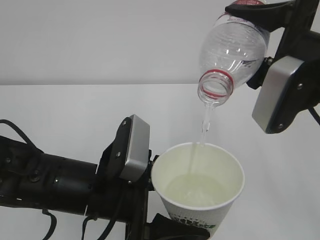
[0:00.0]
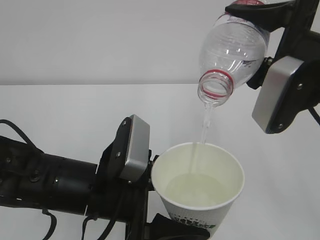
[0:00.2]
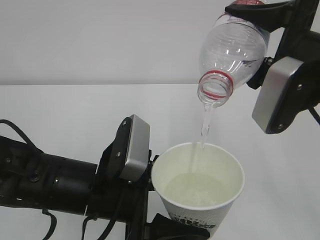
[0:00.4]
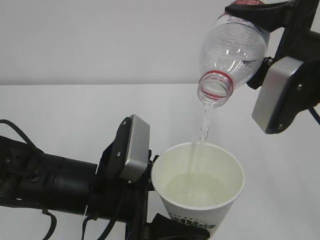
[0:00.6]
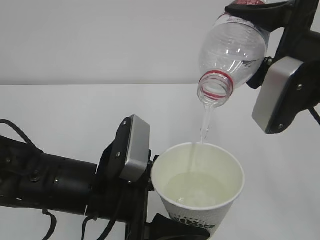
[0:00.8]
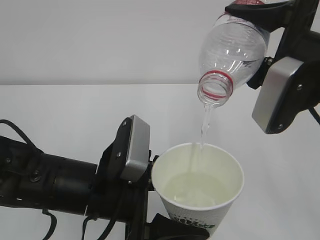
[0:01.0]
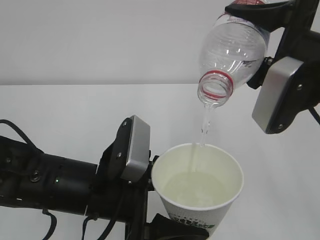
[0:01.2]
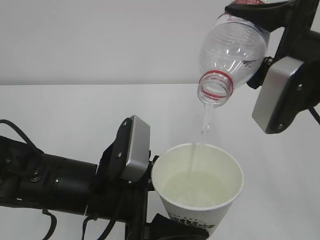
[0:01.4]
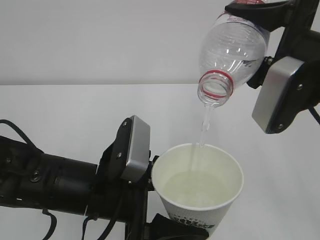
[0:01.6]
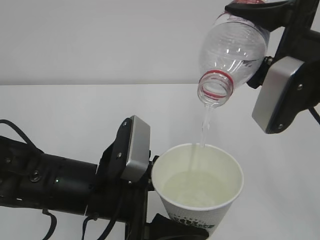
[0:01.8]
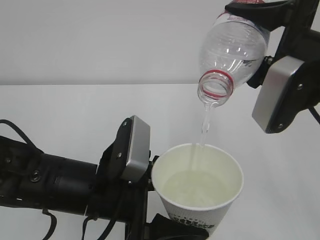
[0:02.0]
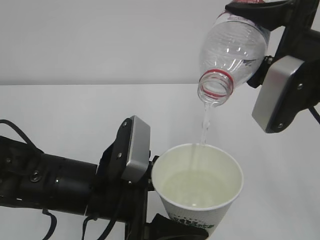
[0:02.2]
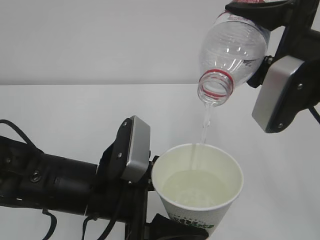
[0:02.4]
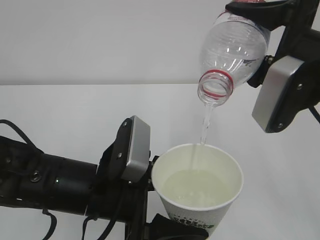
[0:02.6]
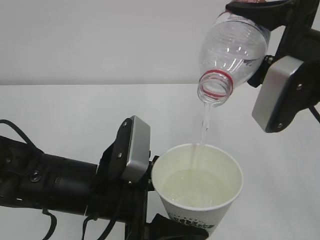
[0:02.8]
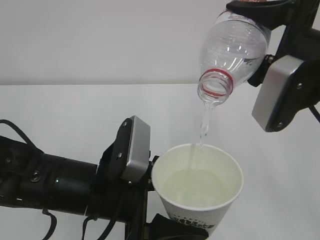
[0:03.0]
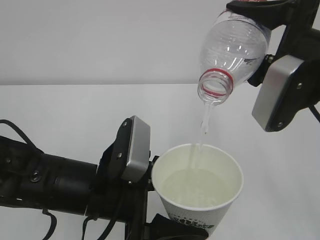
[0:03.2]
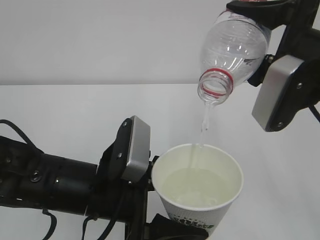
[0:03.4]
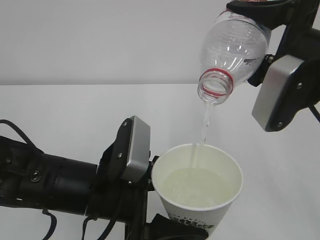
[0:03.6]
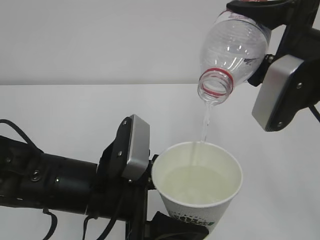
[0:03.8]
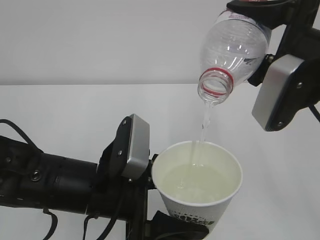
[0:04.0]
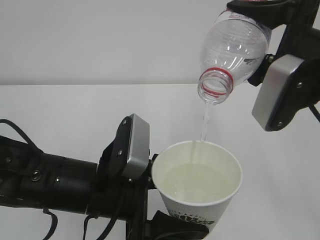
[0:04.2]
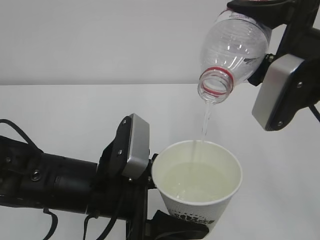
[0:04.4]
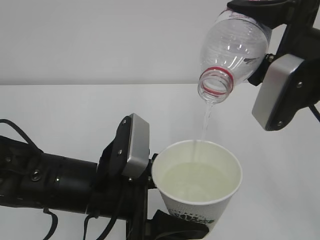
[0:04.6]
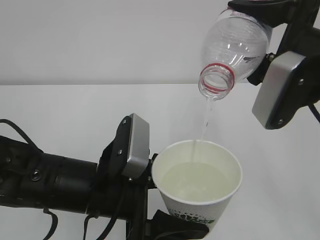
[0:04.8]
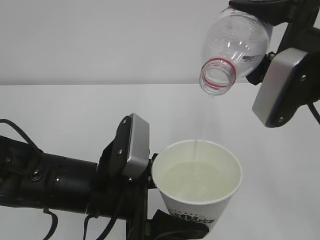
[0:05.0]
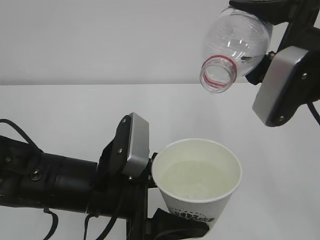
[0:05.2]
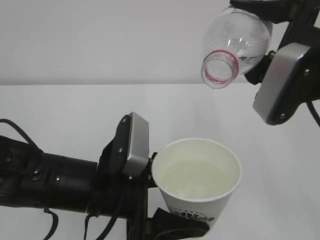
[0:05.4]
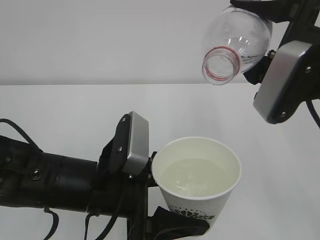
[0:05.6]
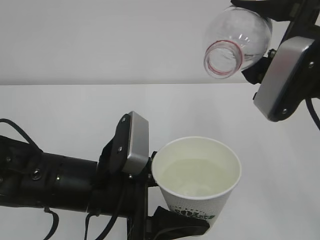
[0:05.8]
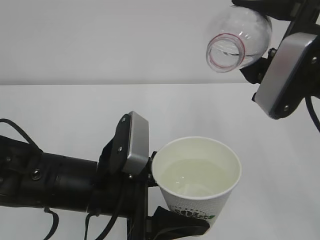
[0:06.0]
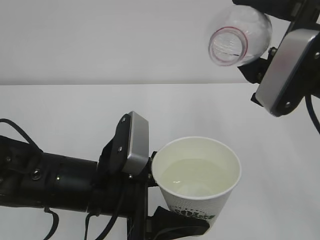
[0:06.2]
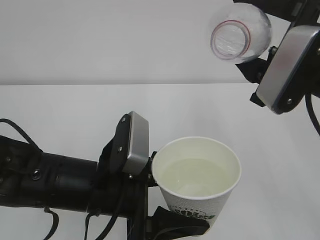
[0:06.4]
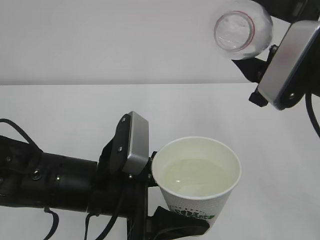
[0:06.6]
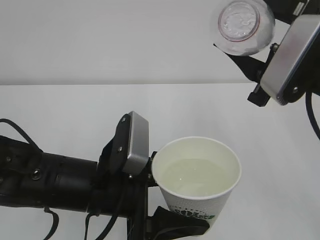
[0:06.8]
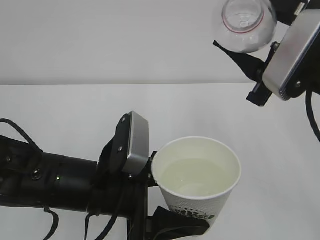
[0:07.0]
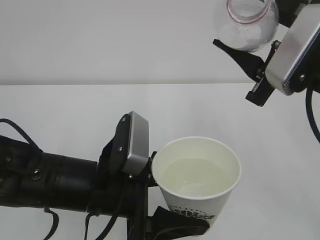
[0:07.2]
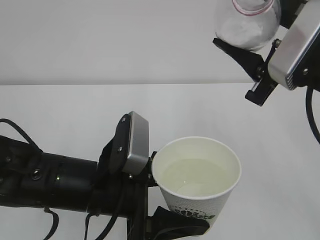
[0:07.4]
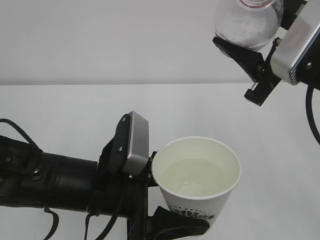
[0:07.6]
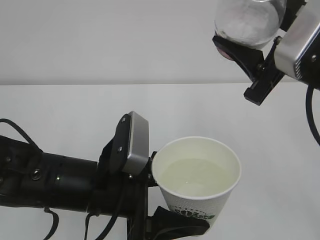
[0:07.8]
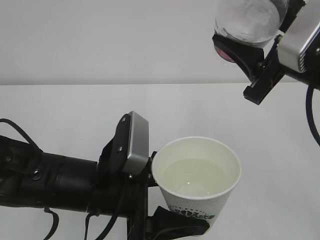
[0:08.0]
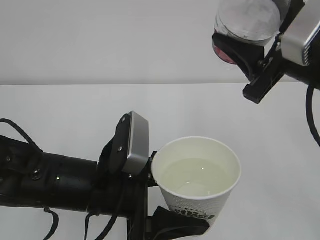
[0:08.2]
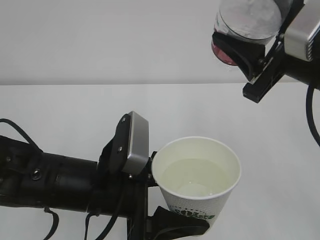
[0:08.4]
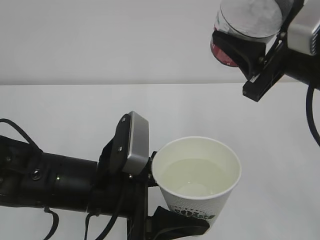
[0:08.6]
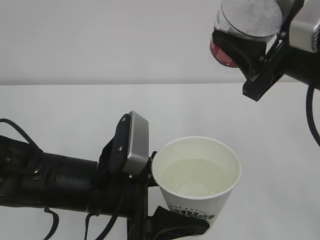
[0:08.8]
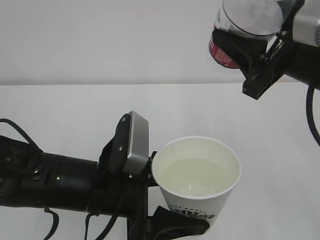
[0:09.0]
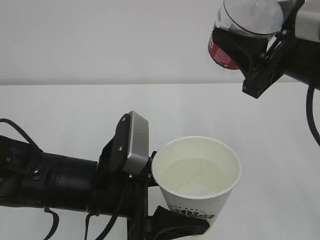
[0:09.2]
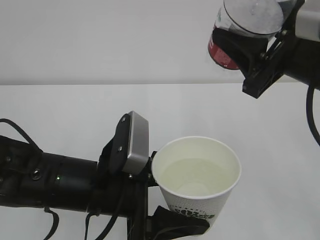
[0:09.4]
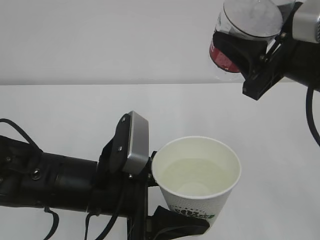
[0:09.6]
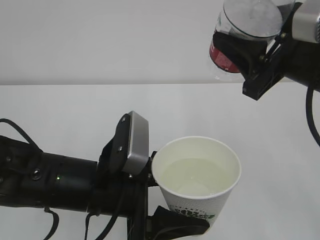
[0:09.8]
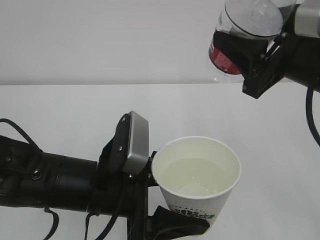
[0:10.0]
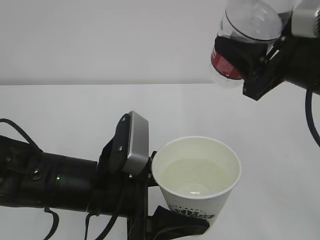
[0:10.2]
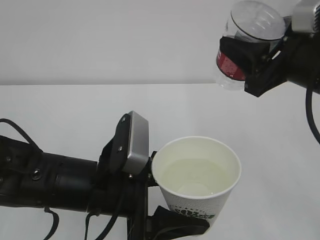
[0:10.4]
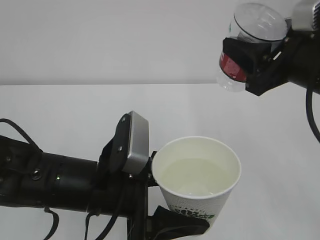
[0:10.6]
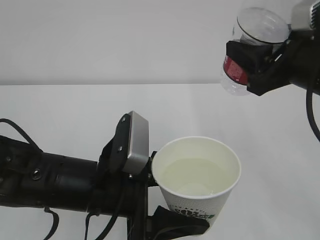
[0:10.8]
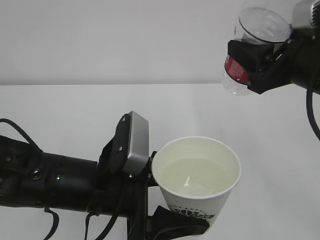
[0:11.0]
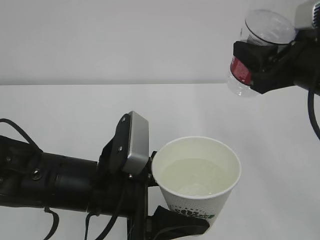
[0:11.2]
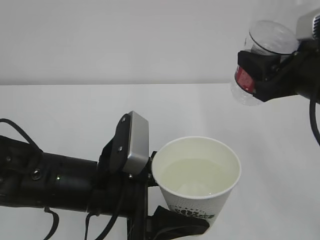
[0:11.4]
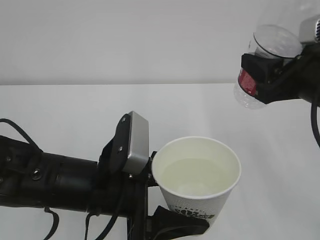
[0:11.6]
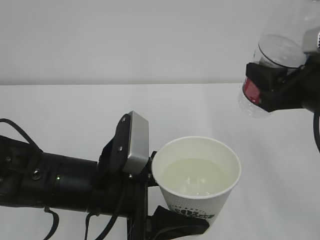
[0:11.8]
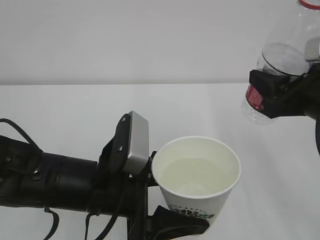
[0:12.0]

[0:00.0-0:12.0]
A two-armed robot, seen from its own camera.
0:00.0 to 0:04.4: Both grippers stay put.
0:04.4 to 0:06.0: The grippers stay close to where they were, moving slightly.
0:09.0 to 0:10.4: There are only small adjustments of the grippers.
0:10.4 to 0:12.0: The right gripper moves about 5 cm.

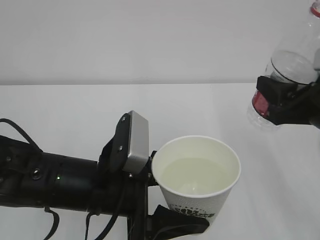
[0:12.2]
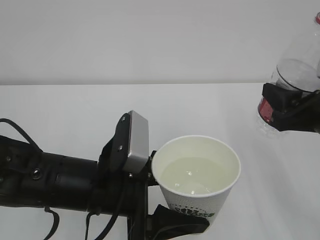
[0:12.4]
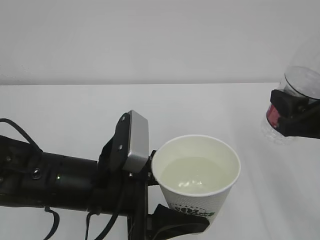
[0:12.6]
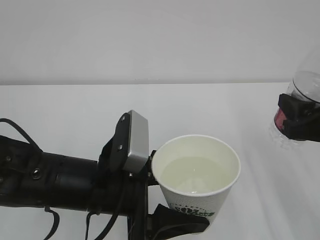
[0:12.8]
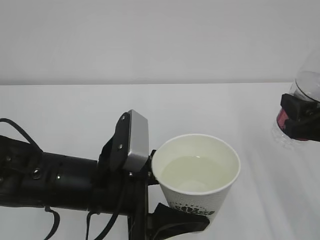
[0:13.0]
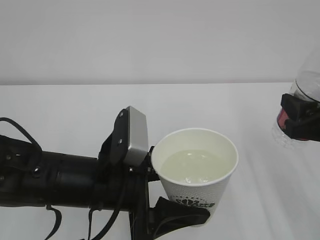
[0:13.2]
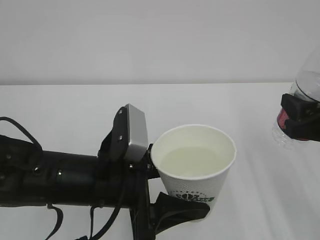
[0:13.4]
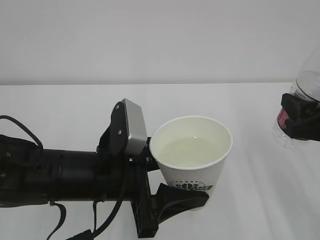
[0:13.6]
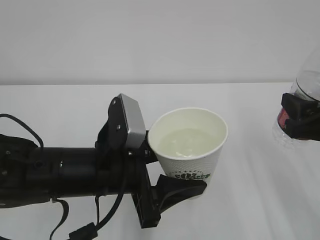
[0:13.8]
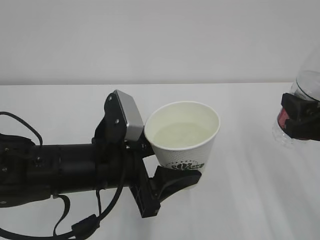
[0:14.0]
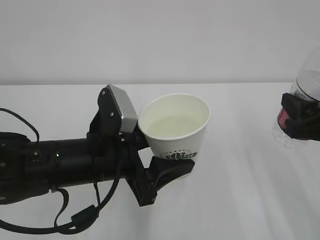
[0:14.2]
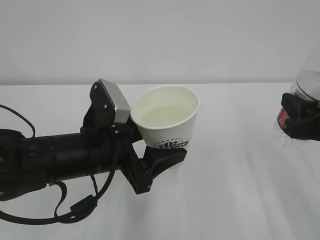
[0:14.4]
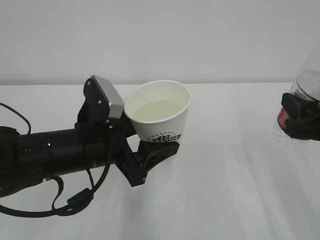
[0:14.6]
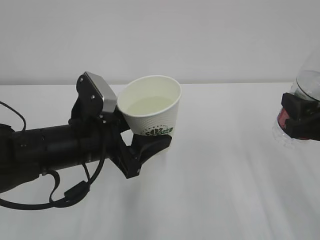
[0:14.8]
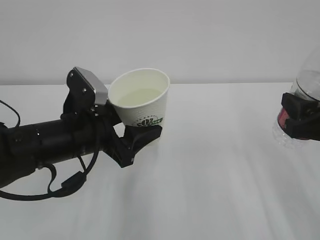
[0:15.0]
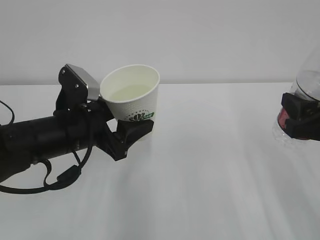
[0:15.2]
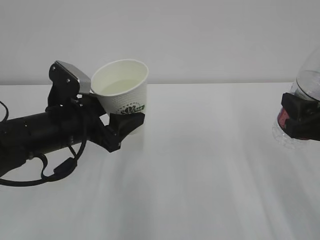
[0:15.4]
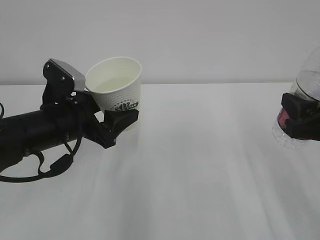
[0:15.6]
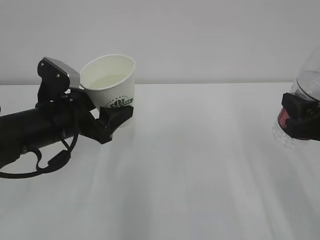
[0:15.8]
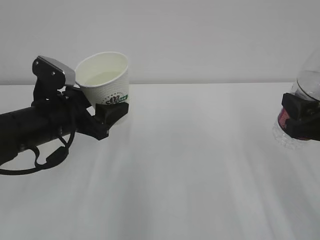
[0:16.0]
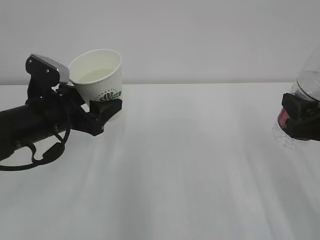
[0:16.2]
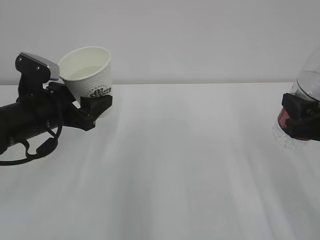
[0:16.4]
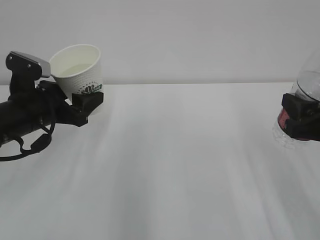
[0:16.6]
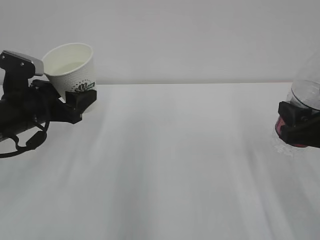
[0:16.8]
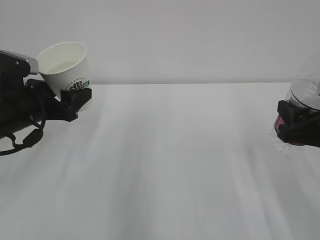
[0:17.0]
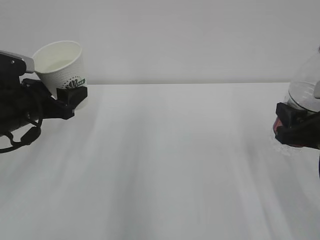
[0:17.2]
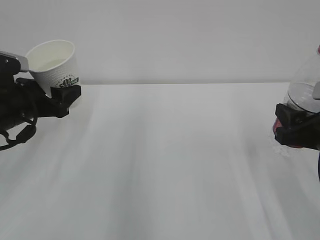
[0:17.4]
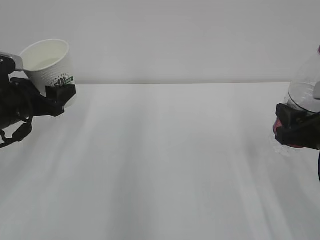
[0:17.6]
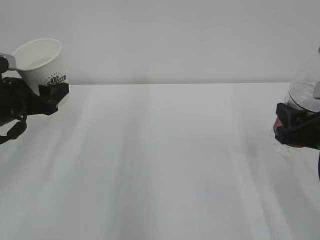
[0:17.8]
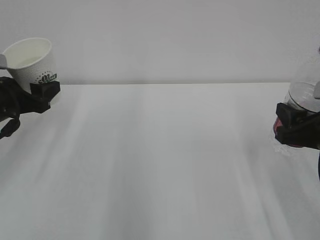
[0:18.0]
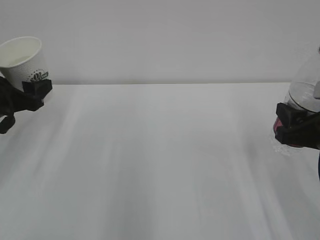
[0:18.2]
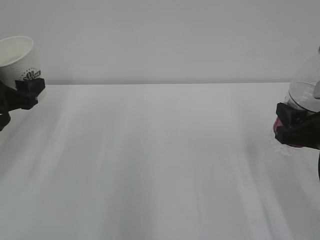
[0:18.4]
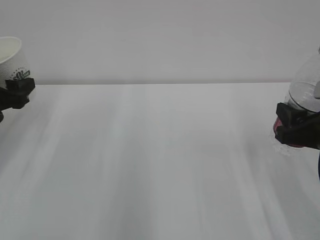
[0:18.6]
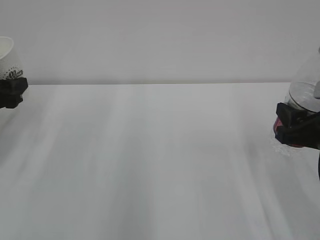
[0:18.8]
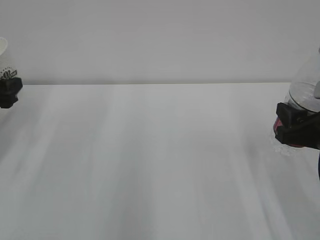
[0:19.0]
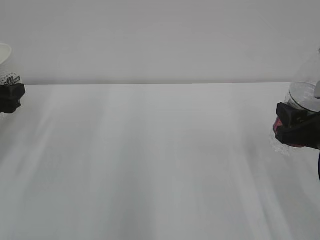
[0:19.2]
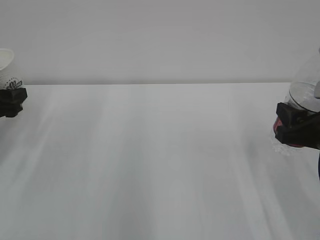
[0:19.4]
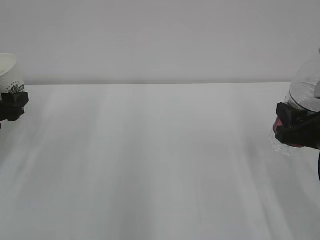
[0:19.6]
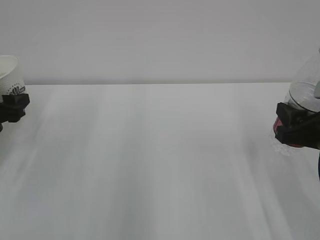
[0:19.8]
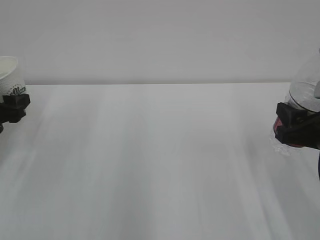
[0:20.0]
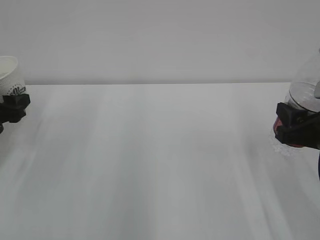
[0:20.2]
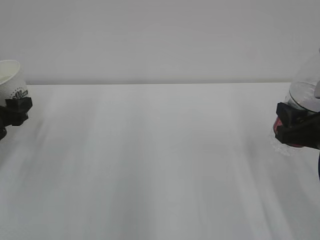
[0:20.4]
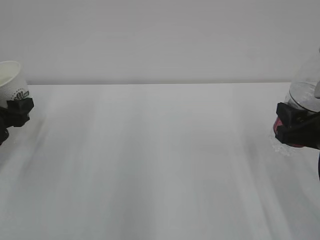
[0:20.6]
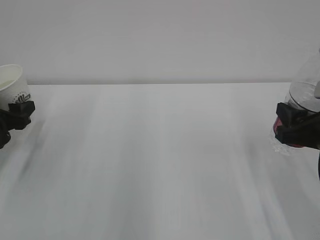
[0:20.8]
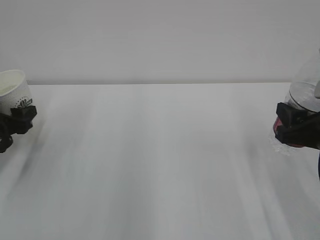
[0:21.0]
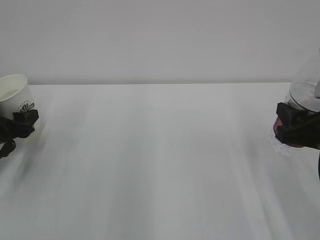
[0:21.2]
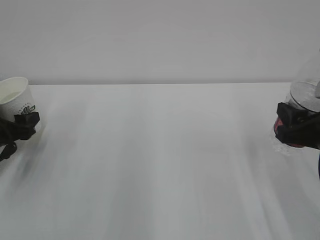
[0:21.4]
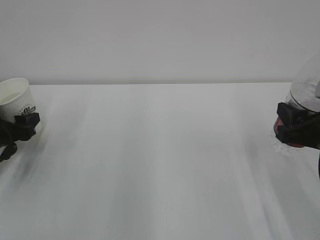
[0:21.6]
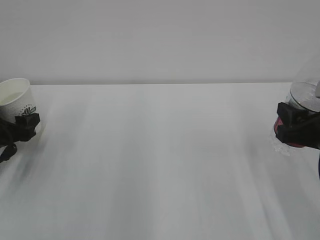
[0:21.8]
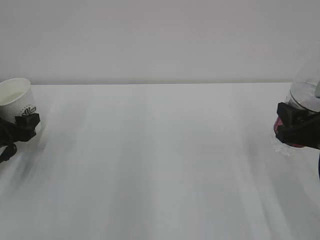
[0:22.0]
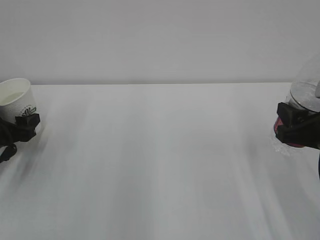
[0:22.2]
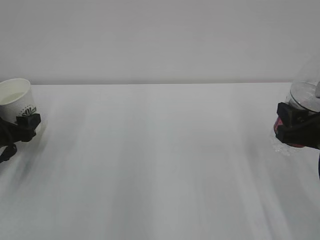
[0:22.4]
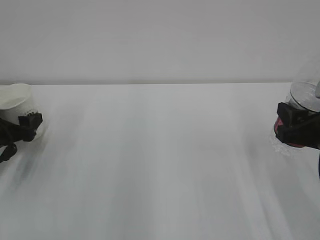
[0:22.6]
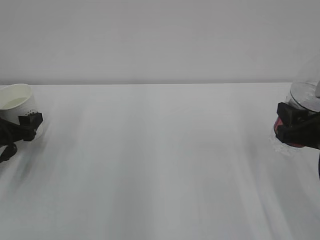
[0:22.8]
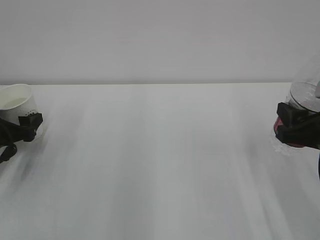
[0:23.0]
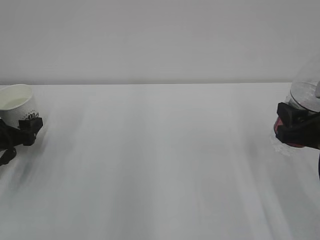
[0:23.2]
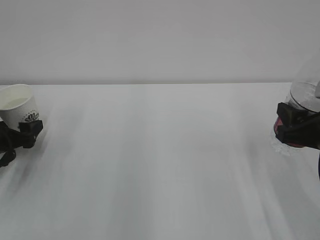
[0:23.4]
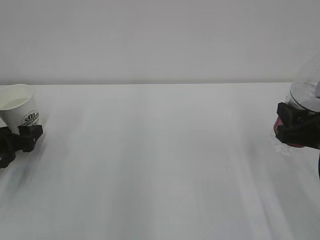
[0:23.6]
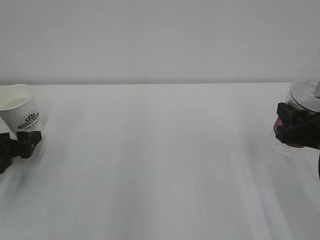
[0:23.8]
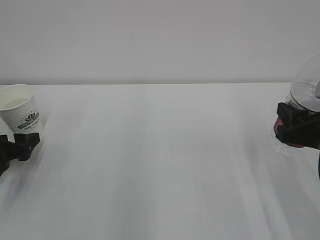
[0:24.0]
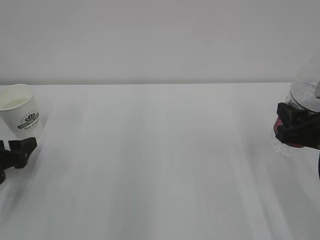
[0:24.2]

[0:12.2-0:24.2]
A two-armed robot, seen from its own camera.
0:12.2 to 0:13.8: The grippers make only small movements.
0:13.8 to 0:15.2: The left gripper goes about 10 cm forward and to the left.
0:15.2 to 0:16.6: The left gripper moves to the left, about 5 cm.
0:16.6 to 0:18.2: The left gripper moves to the left, roughly 10 cm.
0:18.2 to 0:19.8: The left gripper ends up approximately 5 cm from where it was.
0:19.8 to 0:21.2: There are only small adjustments of the grippers.
0:21.2 to 0:22.6: The left gripper opens its fingers.
0:22.6 to 0:24.2: The left gripper travels backward by roughly 5 cm.
